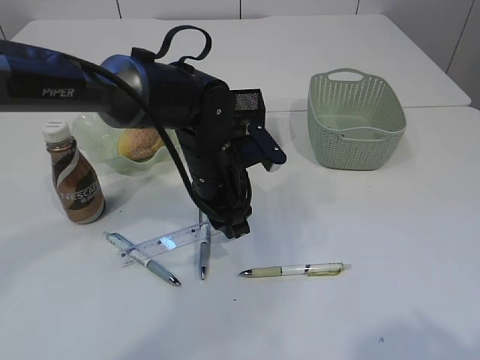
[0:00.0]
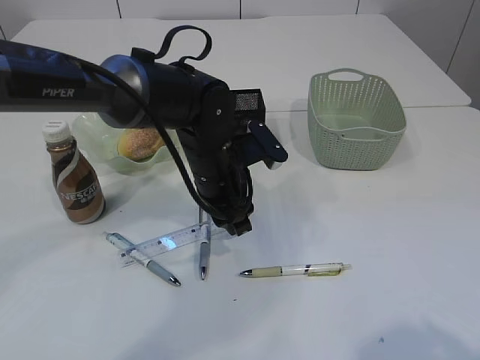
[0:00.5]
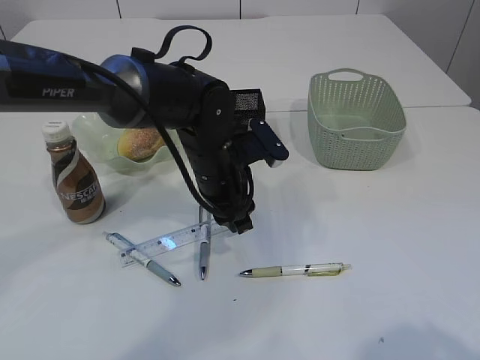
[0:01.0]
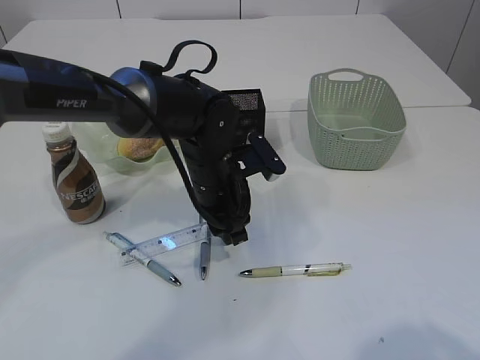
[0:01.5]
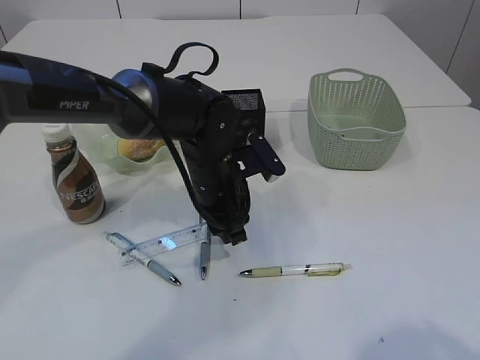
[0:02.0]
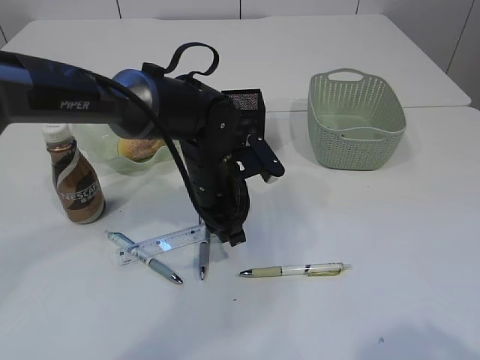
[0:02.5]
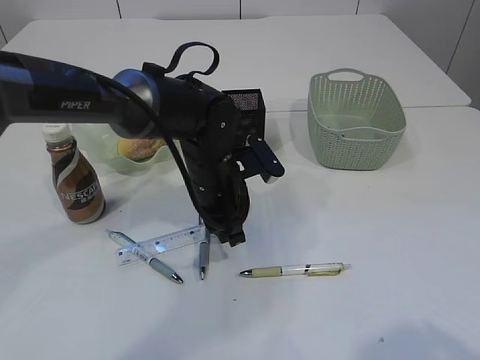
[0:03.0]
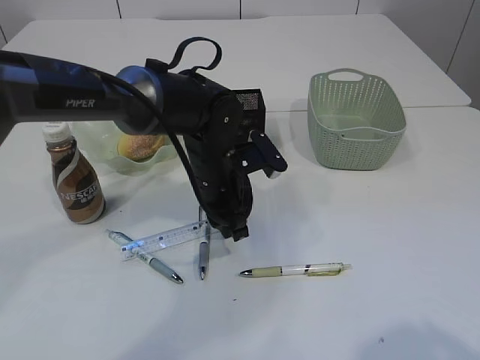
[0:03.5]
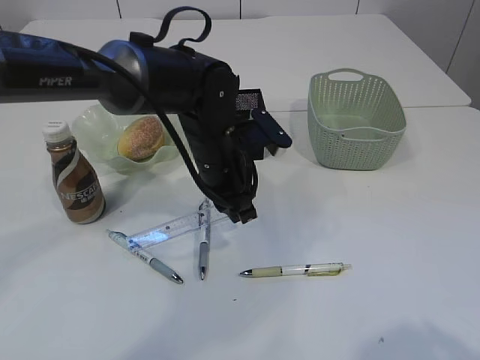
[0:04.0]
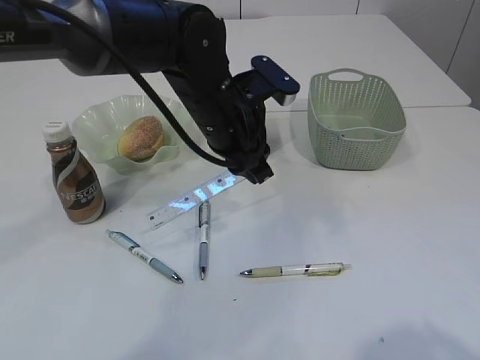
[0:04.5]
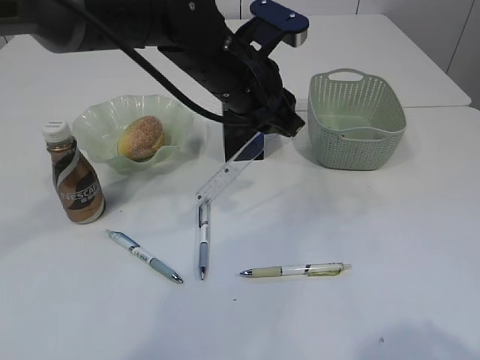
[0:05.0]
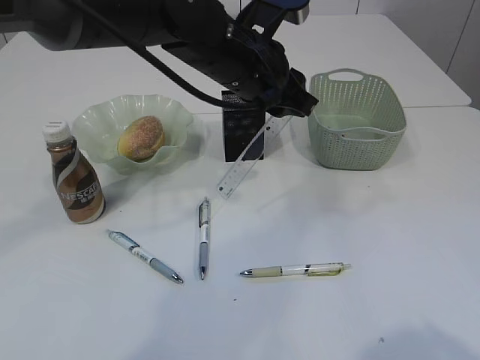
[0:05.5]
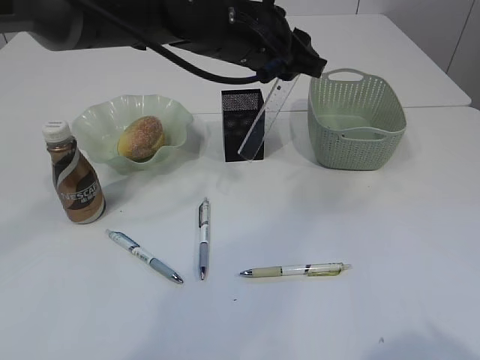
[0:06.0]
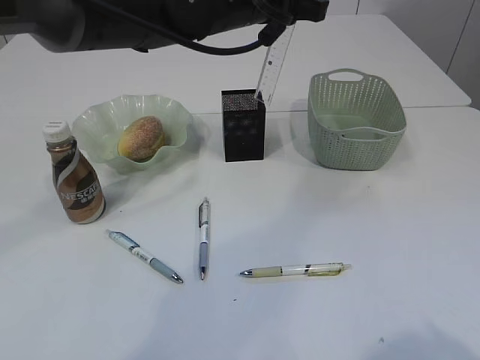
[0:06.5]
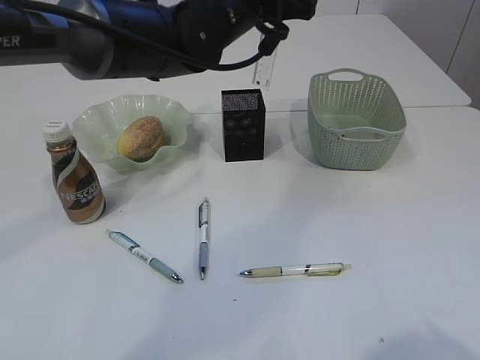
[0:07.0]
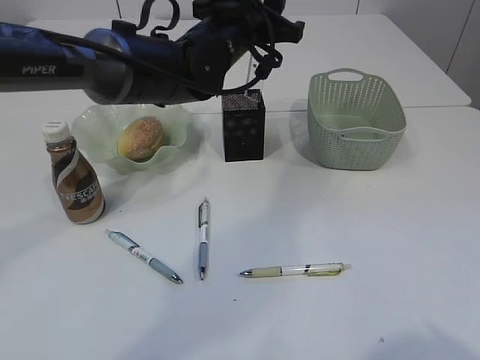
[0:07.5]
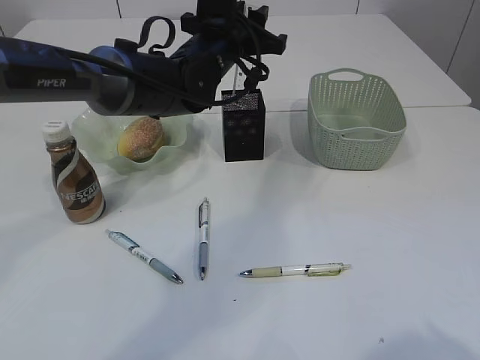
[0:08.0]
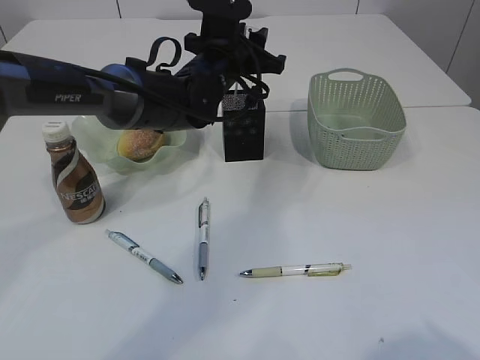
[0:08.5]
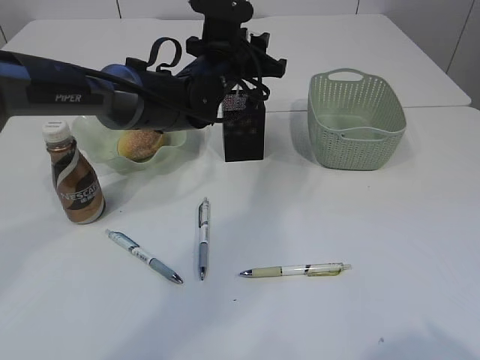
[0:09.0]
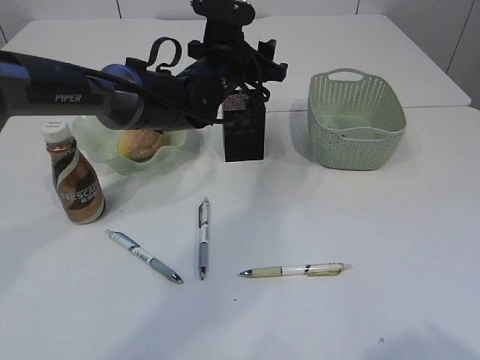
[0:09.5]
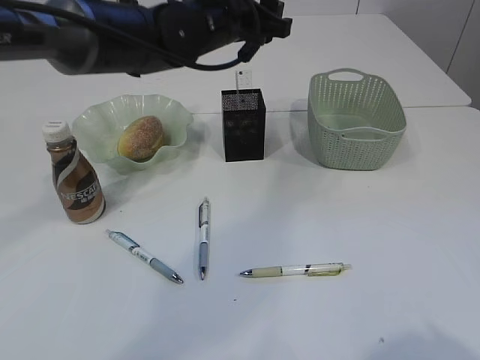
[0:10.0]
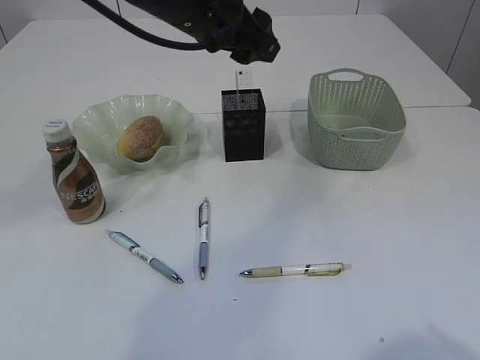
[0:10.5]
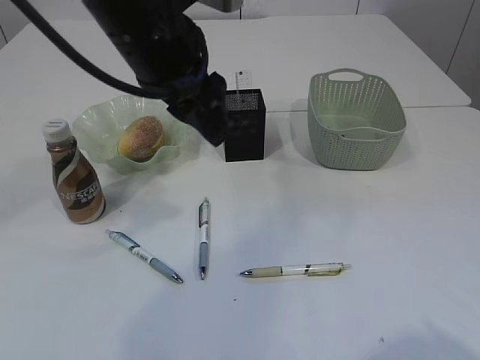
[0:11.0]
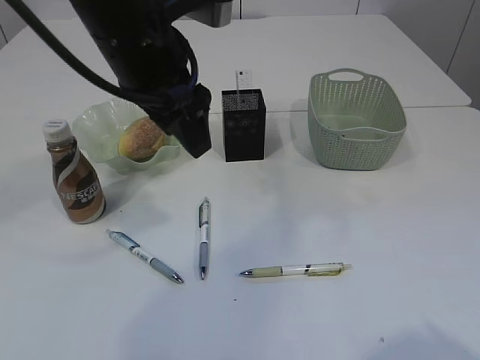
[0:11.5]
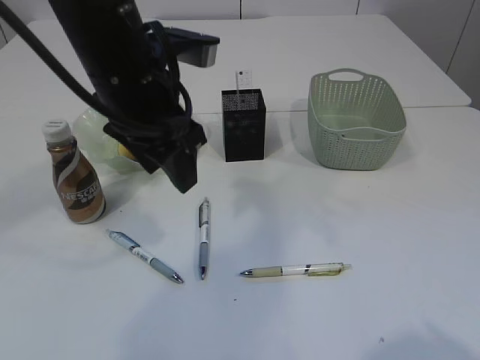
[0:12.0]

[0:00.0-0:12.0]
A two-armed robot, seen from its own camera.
Step, 0:00.0 to 0:04.5: pick up the ruler.
Step, 0:05.0 to 0:10.0: Place the ruler into the pen holder.
0:00.0 to 0:04.0: The grippers move only a little.
0:04.0 to 0:06.0: The left gripper moves upward, about 15 cm.
0:06.0 to 0:08.0: The left gripper travels forward and downward by approximately 10 cm.
0:08.0 to 0:10.0: The left gripper changes place by about 5 cm, and opens.
0:10.0 to 0:12.0: The left gripper shifts some 15 cm backward and to the left.

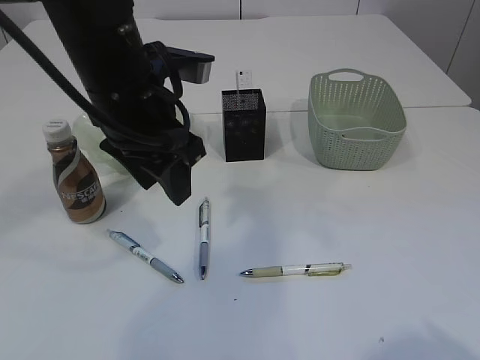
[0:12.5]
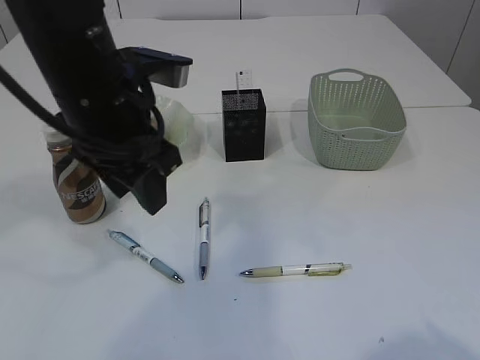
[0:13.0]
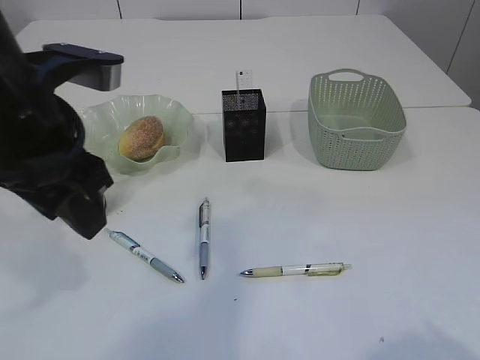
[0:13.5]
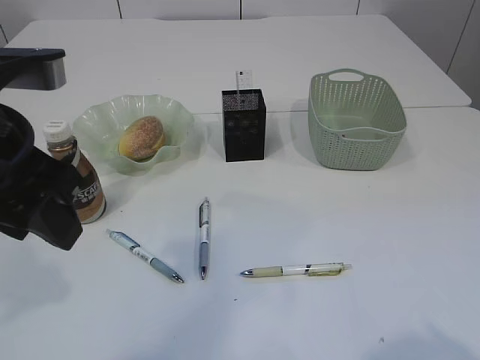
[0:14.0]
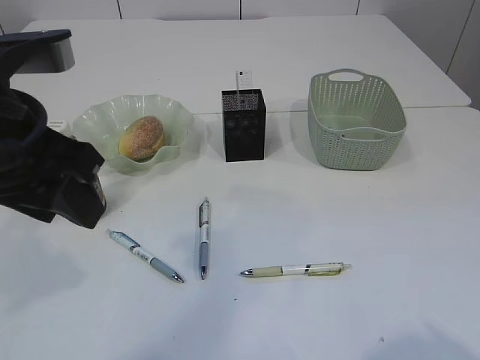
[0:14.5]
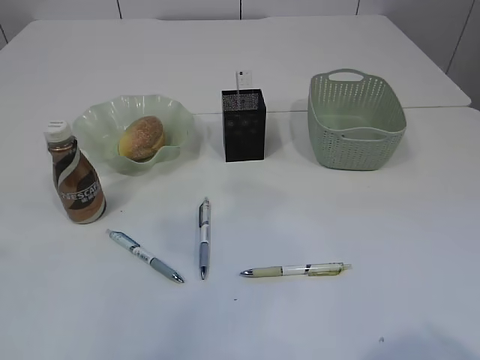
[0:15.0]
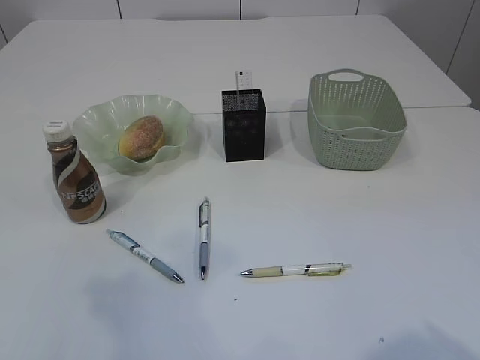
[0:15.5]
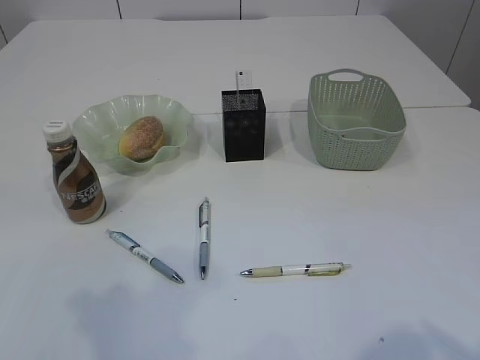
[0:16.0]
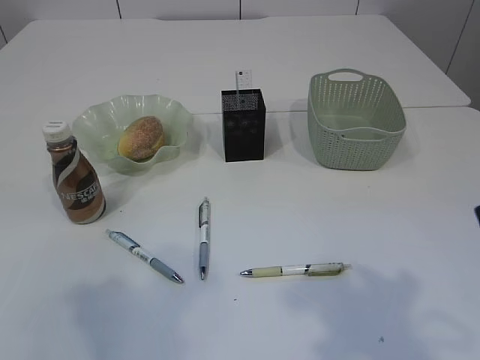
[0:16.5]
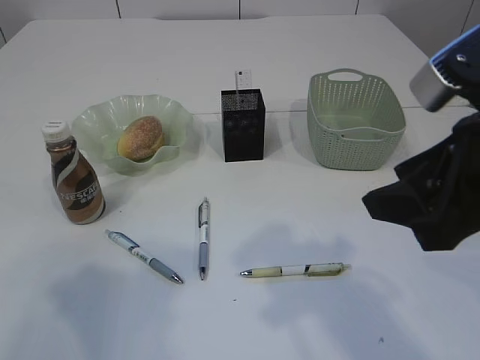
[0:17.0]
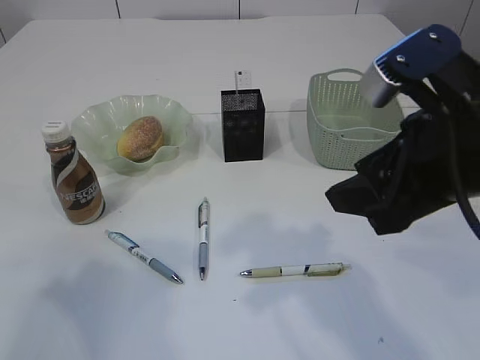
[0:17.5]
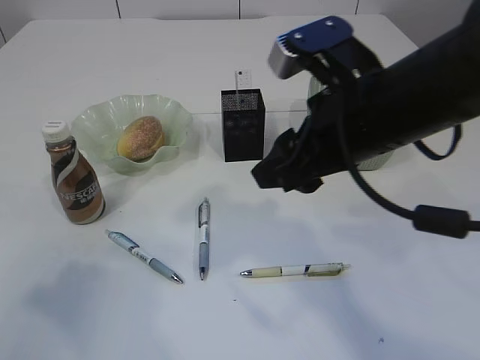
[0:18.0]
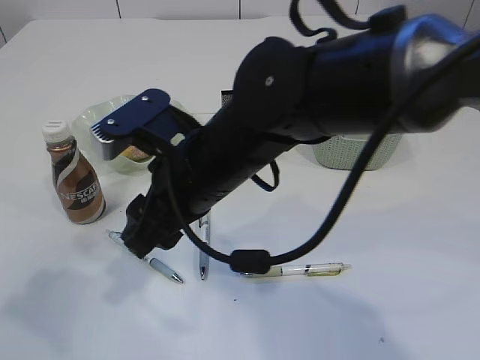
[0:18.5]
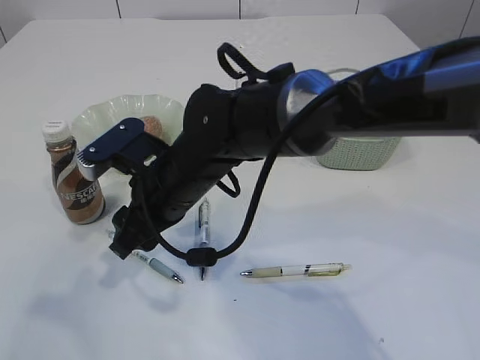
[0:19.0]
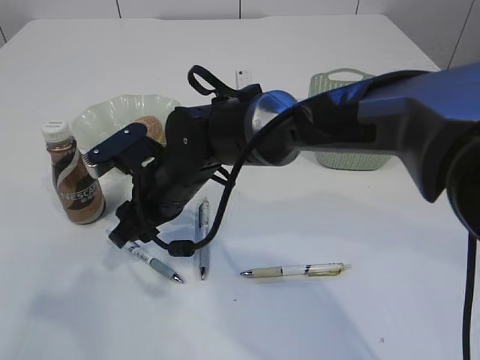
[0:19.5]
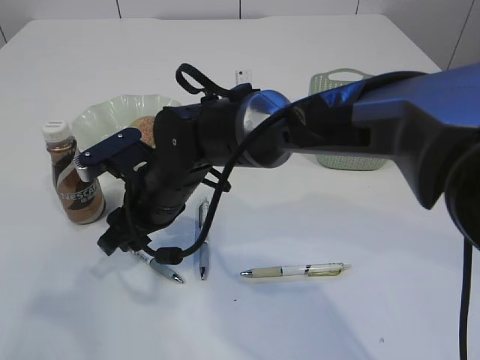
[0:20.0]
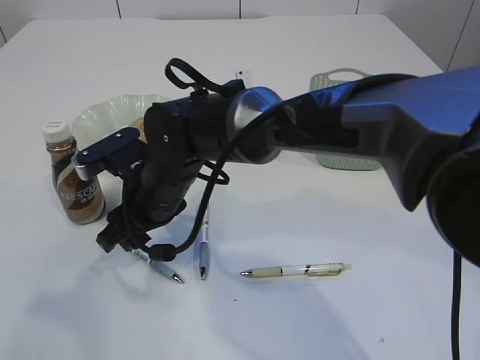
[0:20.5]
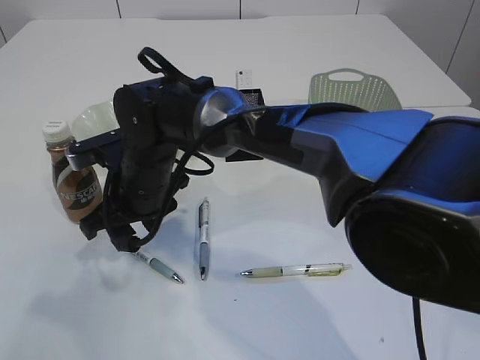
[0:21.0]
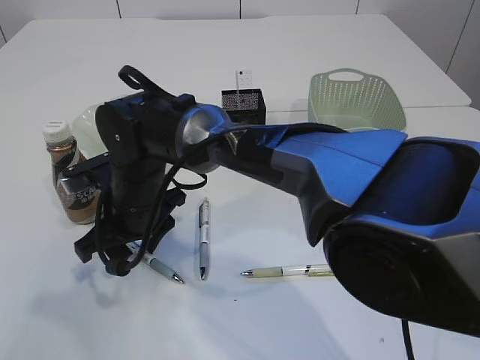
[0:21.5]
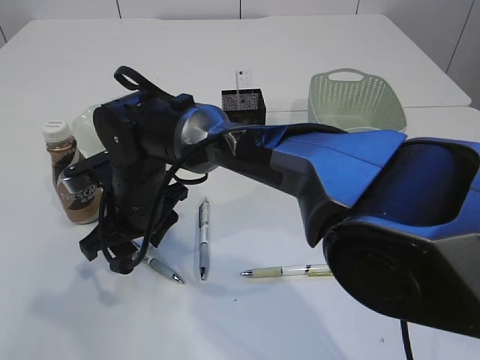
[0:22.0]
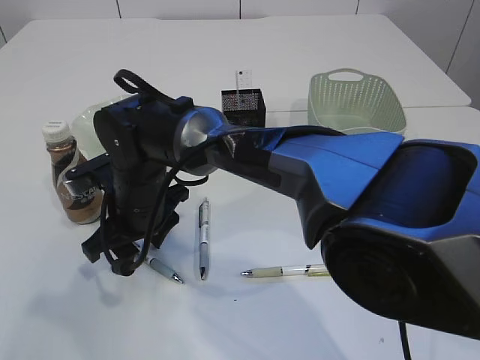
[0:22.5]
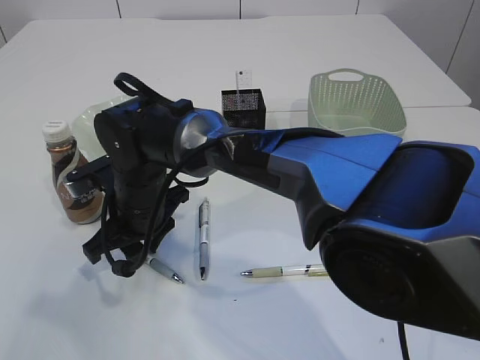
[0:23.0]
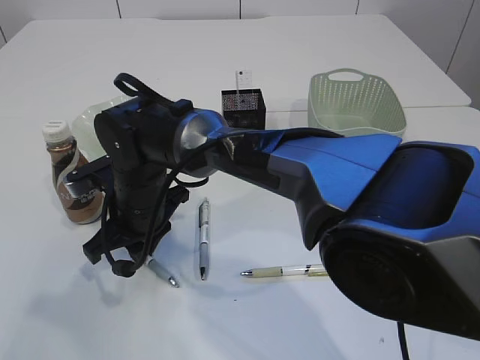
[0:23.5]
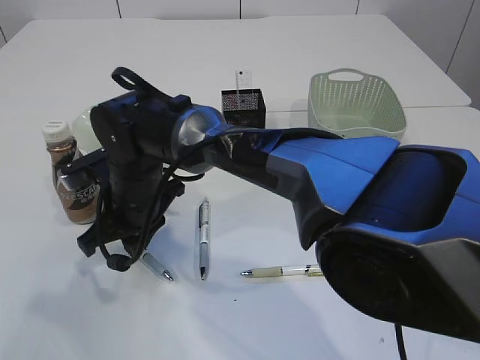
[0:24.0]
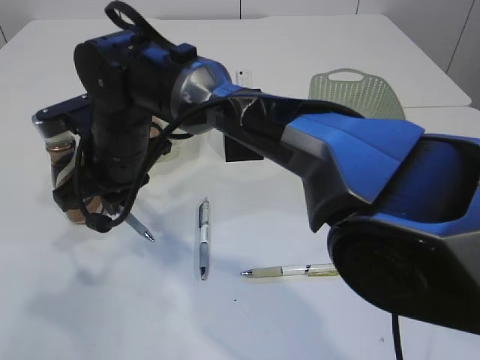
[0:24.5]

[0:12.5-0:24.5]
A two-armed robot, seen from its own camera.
0:12.5 to 0:14.5: The left gripper shifts some 10 cm backward and to the left.
0:14.5 to 0:16.5: The right gripper is displaced forward by approximately 5 cm. Meanwhile the left gripper goes about 15 cm backward and to the left.
0:16.5 to 0:18.5: The right gripper moves to the left and forward, roughly 30 cm, while the left gripper closes.
0:18.5 to 0:20.5: The right gripper is displaced downward, forward and to the left by about 10 cm.
0:22.5 to 0:24.5: The right gripper shifts some 5 cm upward, and closes its fingers.

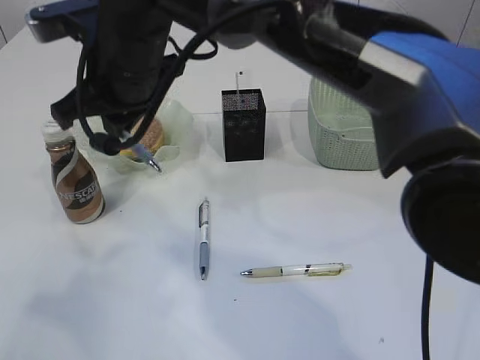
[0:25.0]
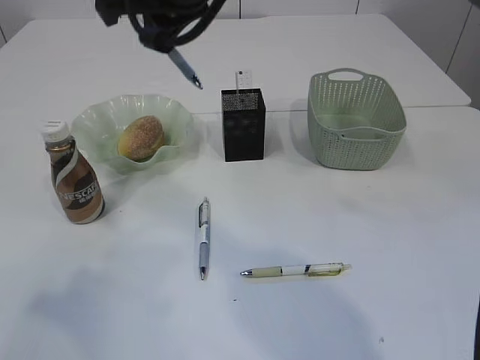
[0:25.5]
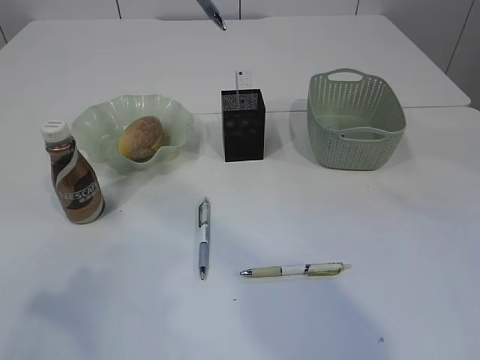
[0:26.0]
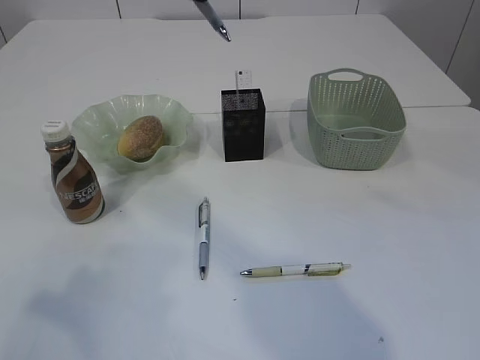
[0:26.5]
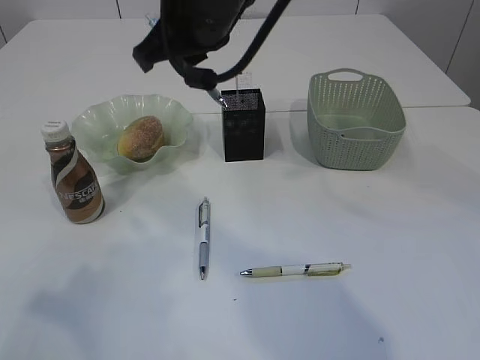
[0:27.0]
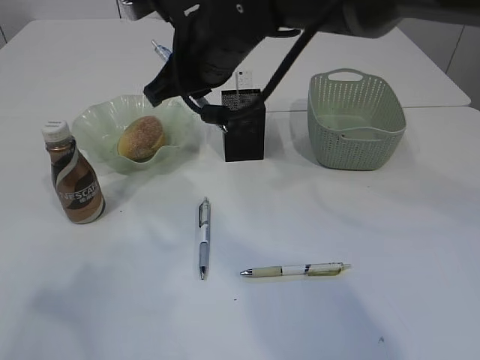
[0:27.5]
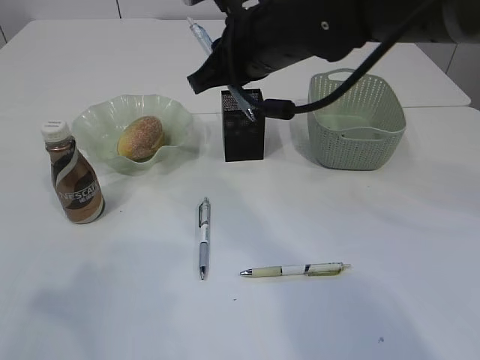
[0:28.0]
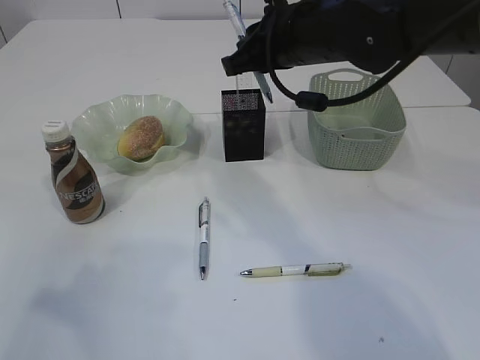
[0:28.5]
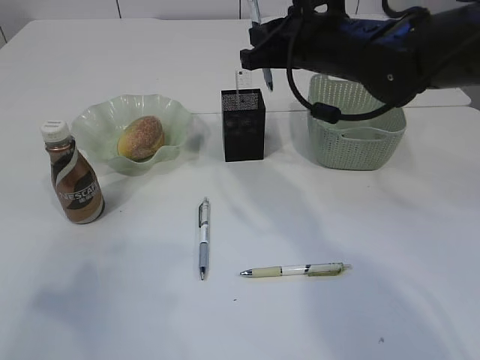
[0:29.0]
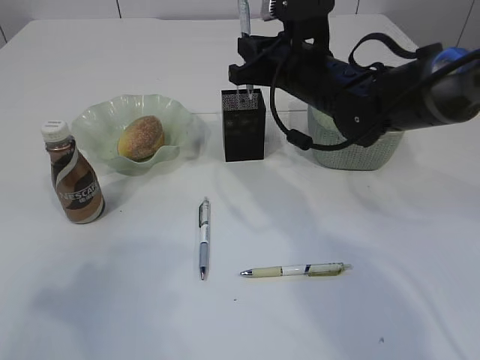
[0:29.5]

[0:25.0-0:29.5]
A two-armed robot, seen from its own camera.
0:25.0 to 0:27.0: The right gripper moves to the right, approximately 5 cm, and moves about 15 cm upward and comes back.
0:27.0 to 0:29.5: The right gripper travels to the right, downward and forward by roughly 15 cm.
